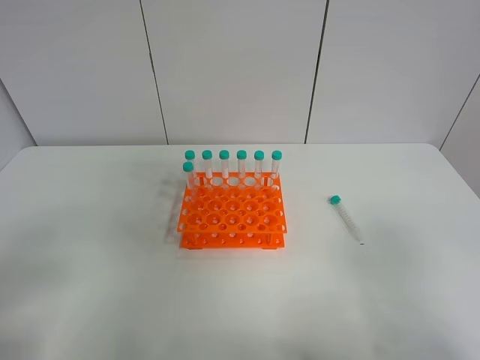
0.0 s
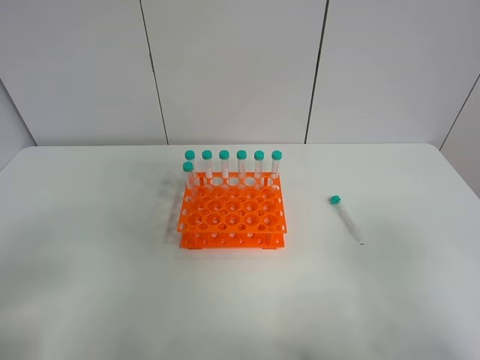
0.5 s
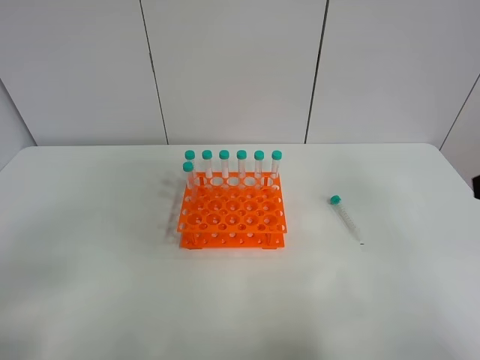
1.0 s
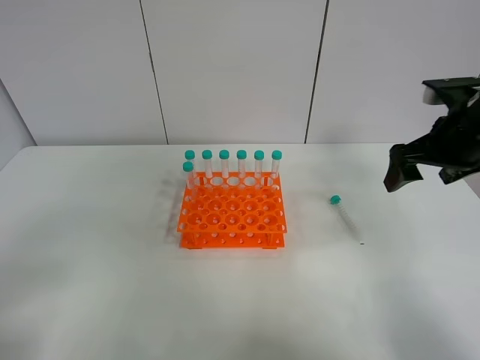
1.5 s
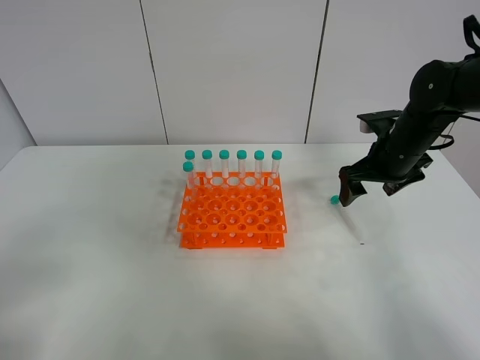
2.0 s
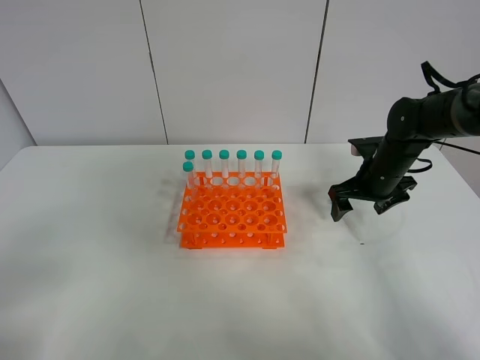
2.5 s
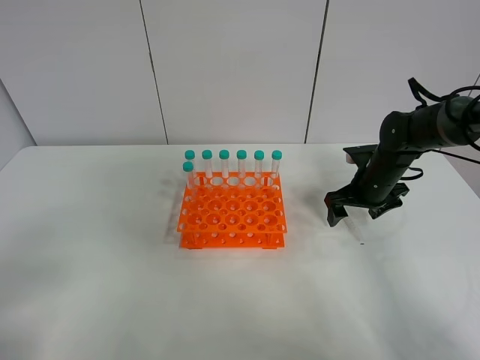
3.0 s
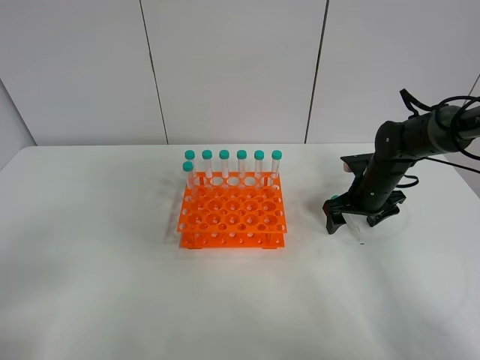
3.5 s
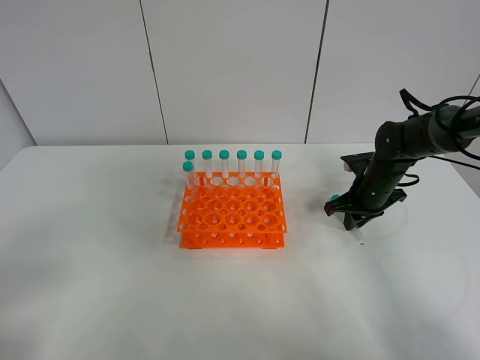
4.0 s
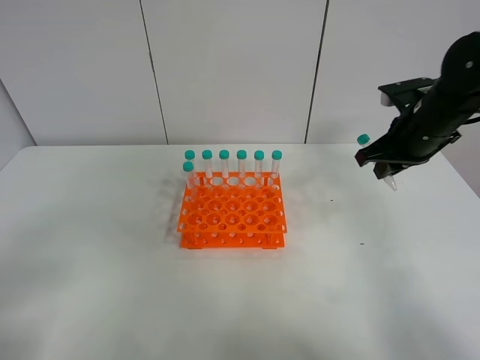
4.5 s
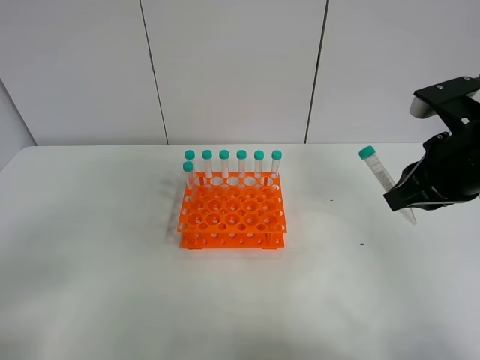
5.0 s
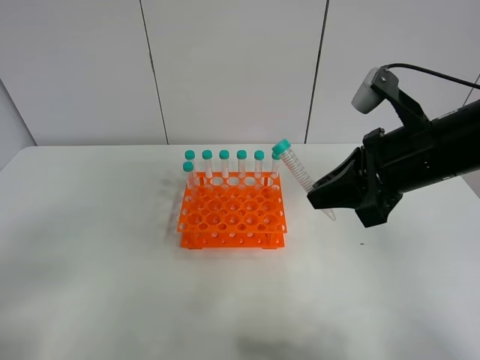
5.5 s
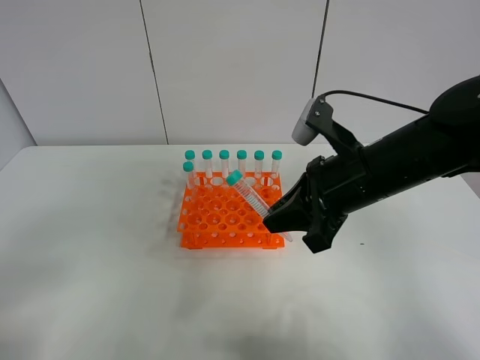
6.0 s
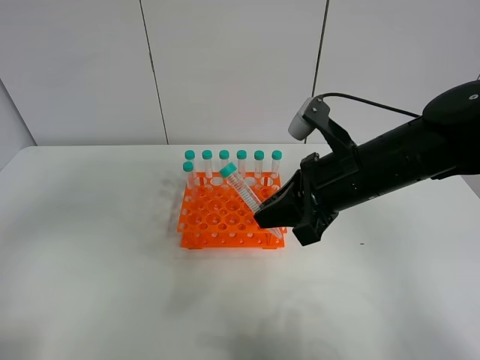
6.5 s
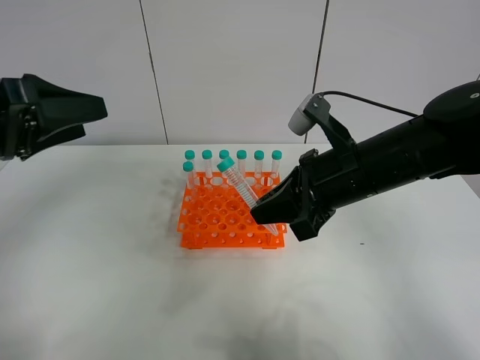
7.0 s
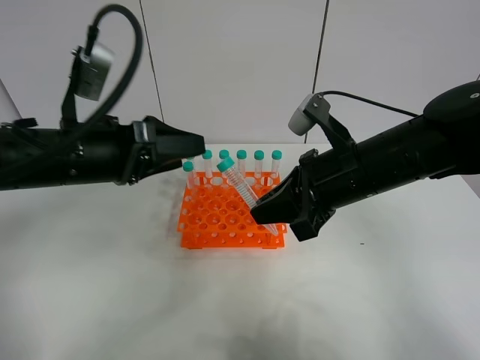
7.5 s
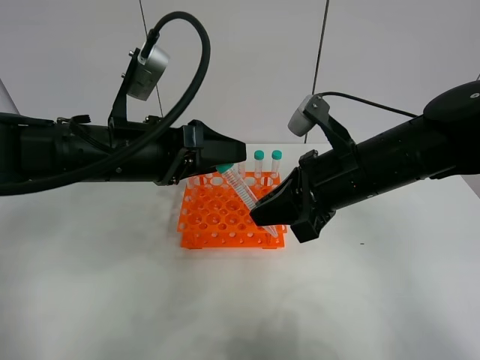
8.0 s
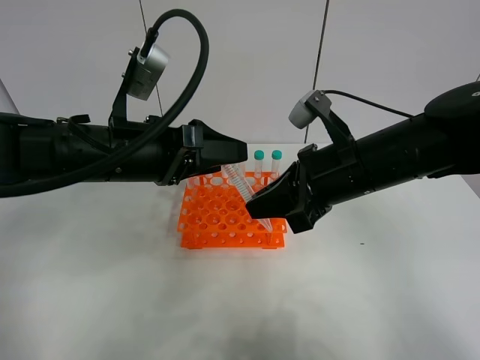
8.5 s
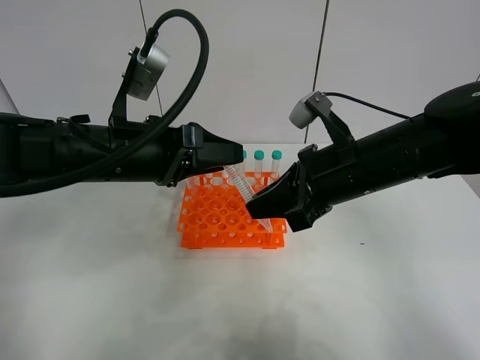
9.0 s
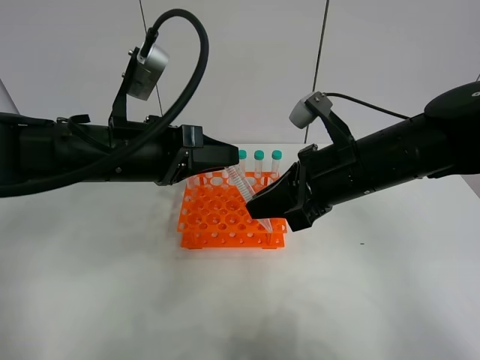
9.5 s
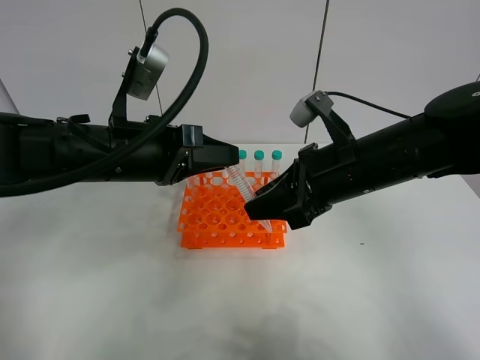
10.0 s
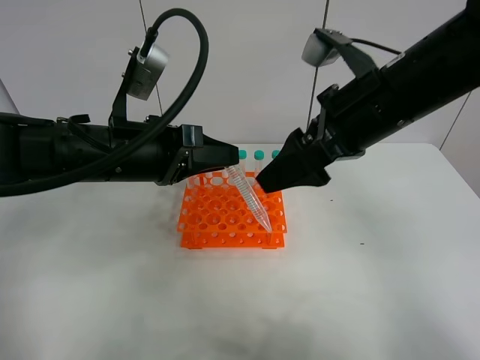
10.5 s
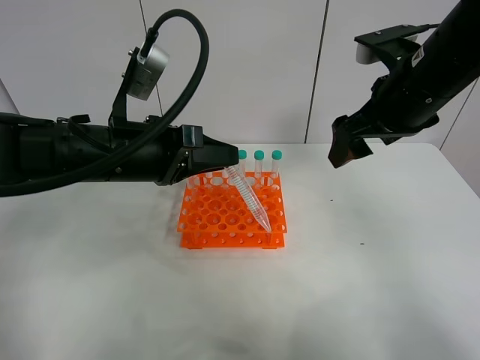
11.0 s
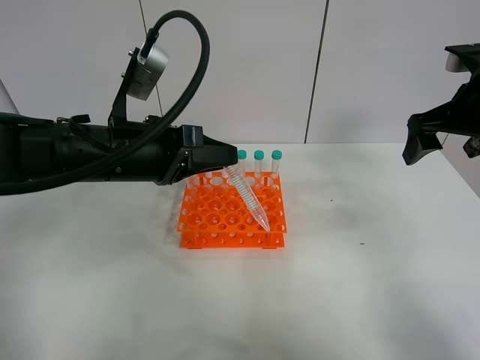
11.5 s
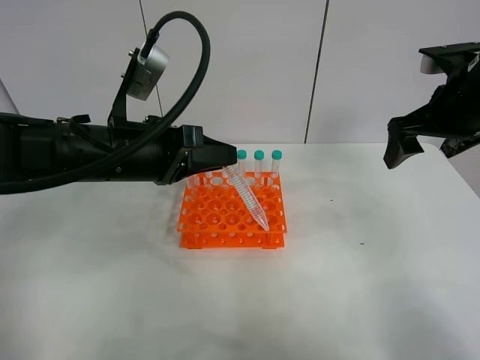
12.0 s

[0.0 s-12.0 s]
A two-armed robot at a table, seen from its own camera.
Task of the whole recording: Put the test tube on the table back onto the test tube rack.
Step, 0.0 to 4.0 s: Pick up the test tube with the right gripper.
Step, 4.5 to 10.0 s: Move the test tube from the right gripper to the left gripper.
0.0 to 2.0 s: The right gripper is displaced forward by about 35 cm.
2.0 to 4.0 s: The right gripper moves downward, approximately 10 cm, and closes.
4.0 to 6.0 s: The right gripper moves backward, upward and to the left, some 25 cm.
6.0 to 8.0 s: The left gripper moves forward and to the right, approximately 30 cm.
8.0 to 10.0 s: The right gripper opens its fingers. Meanwhile the left gripper closes its fingers.
10.0 to 12.0 s: The right gripper shifts roughly 15 cm to the right, forward and upward, and opens up.

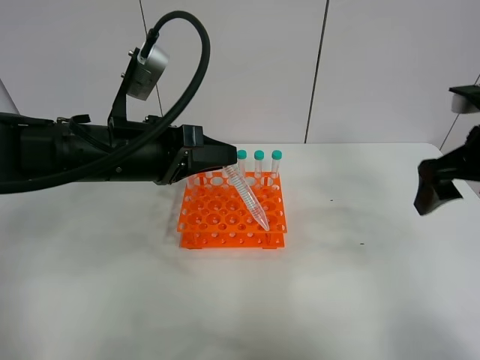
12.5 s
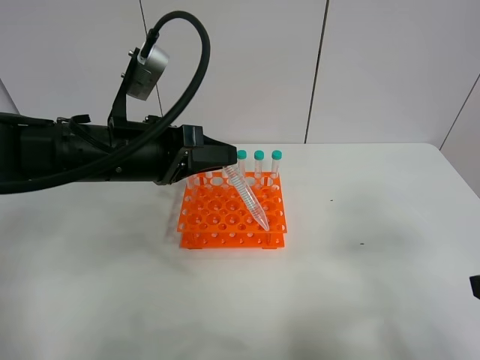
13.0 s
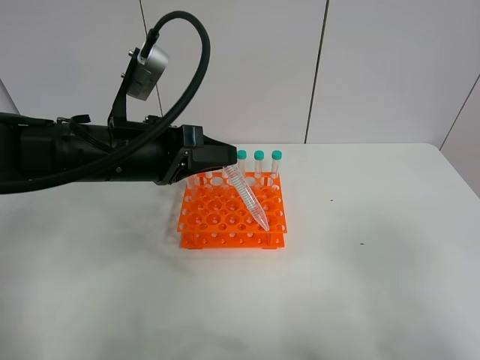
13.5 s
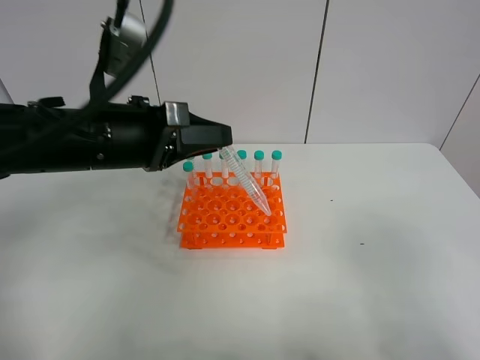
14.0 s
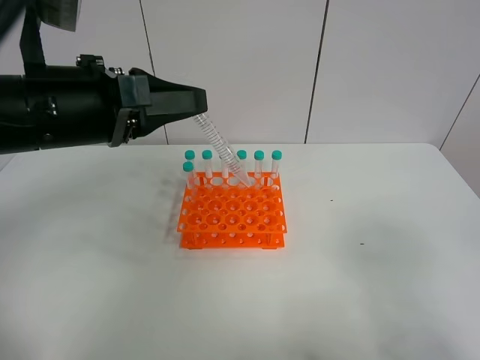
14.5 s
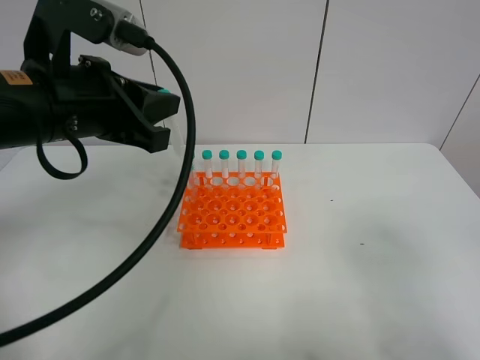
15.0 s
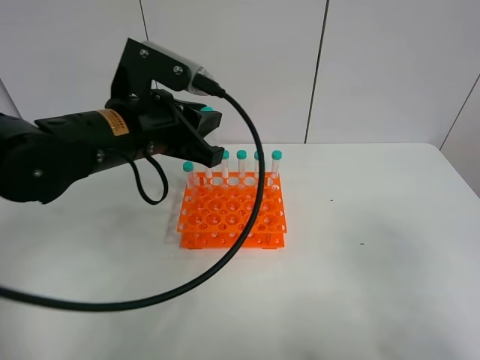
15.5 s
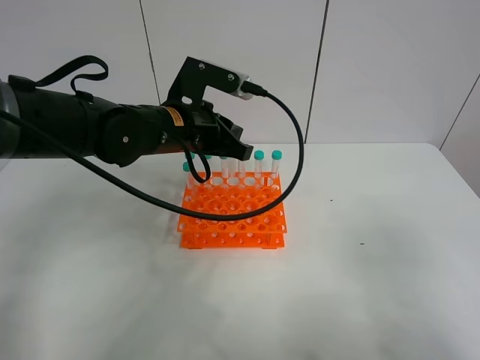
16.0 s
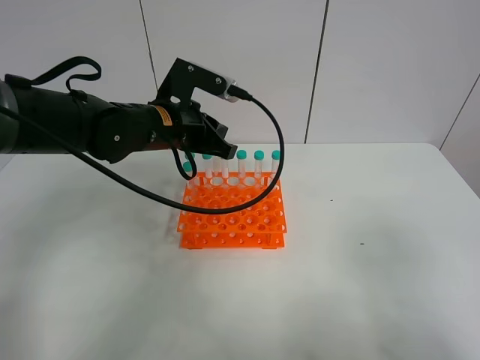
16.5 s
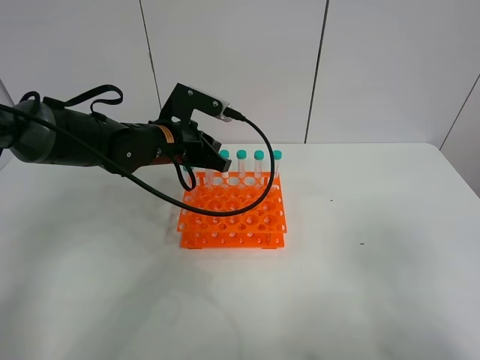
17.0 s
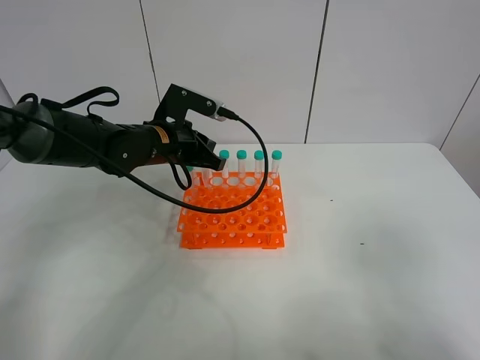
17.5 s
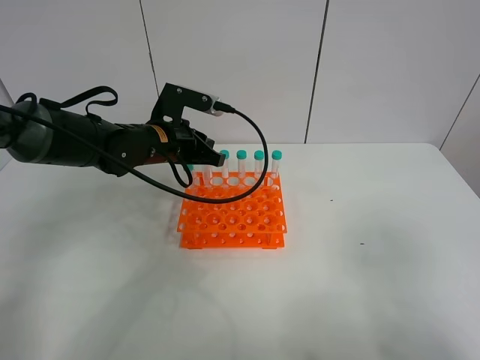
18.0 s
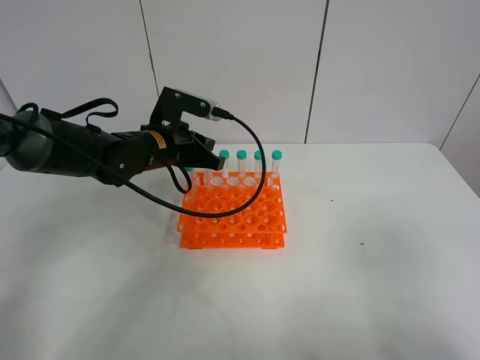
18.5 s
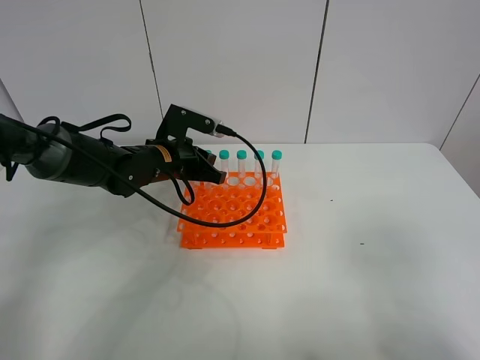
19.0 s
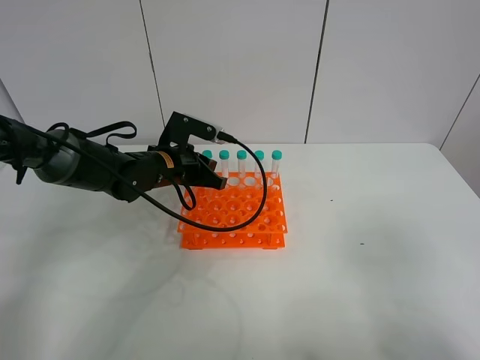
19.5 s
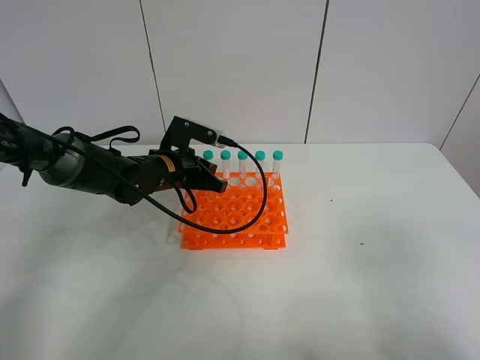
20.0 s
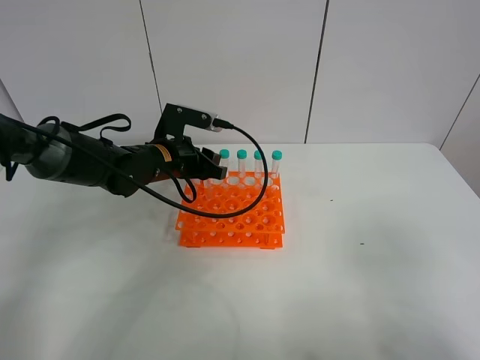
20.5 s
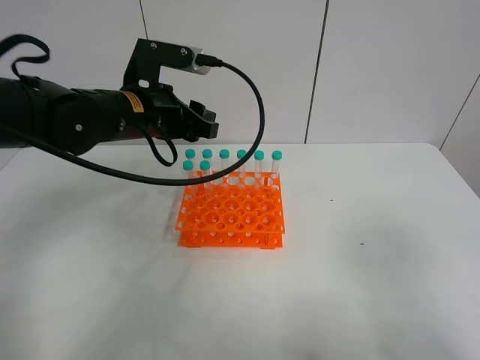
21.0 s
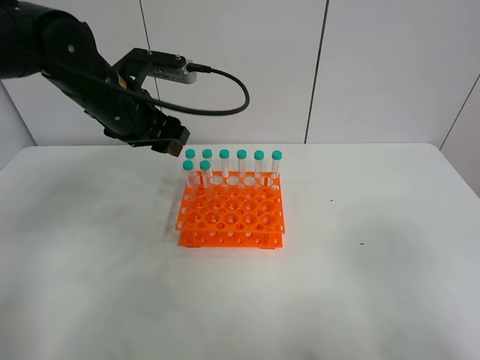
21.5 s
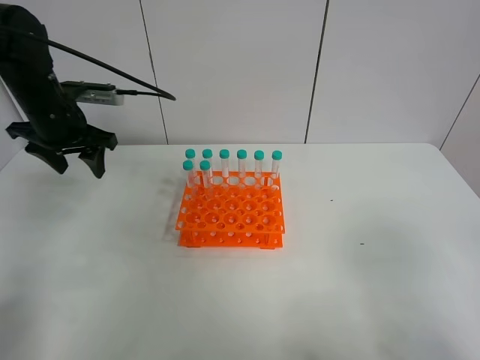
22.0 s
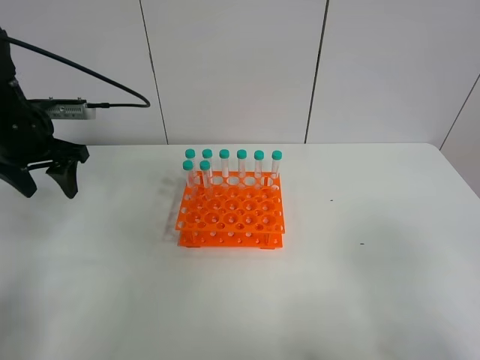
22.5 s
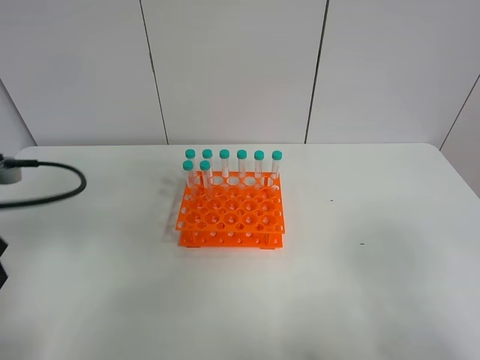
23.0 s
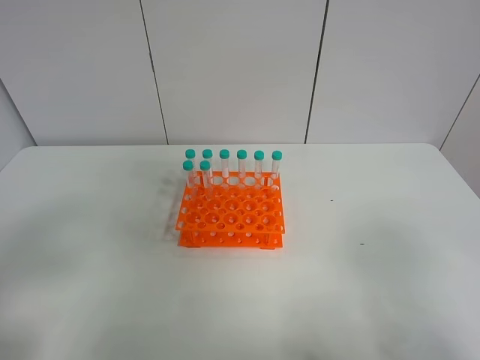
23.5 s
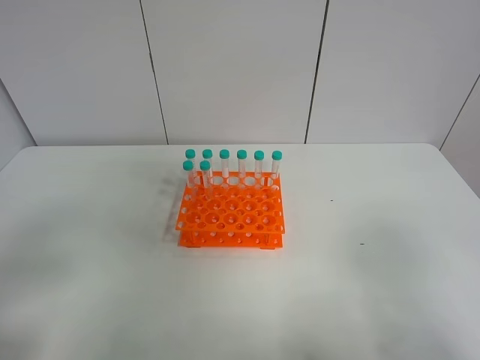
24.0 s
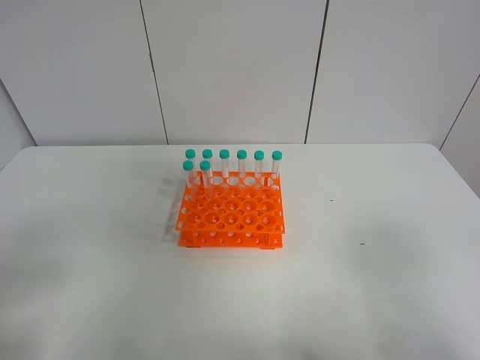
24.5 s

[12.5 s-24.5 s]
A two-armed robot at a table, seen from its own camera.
Task of the whole recording: Put the test tube on the table back onto the test tube rack.
Step, 12.5 to 20.5 s: Place the test tube on the test tube rack with the left gripper.
12.5 to 14.5 s: The right gripper travels backward by roughly 25 cm, while the left gripper moves upward, about 5 cm.
14.5 to 16.5 s: The left gripper travels forward, downward and to the right by roughly 15 cm.
16.5 to 18.5 s: The left gripper changes place by approximately 5 cm.
18.5 to 20.5 s: The left gripper opens.
20.5 to 22.5 s: The left gripper is displaced to the left and upward by some 20 cm, and opens up.
22.5 to 24.5 s: The left gripper is displaced backward by roughly 35 cm.

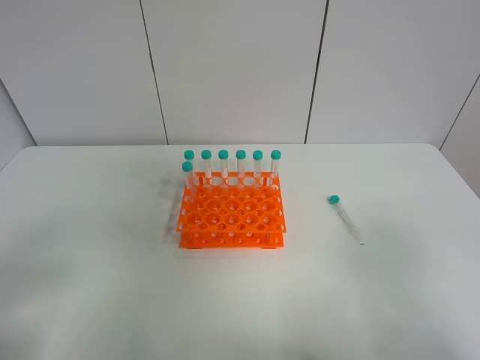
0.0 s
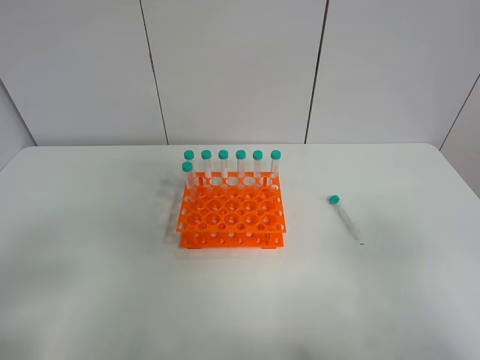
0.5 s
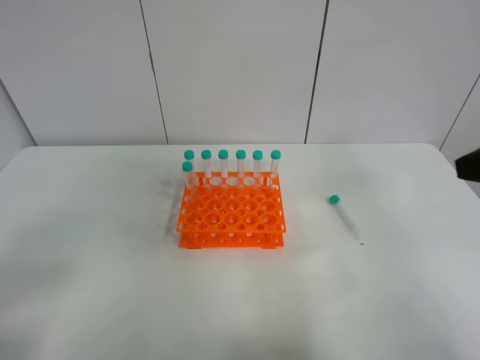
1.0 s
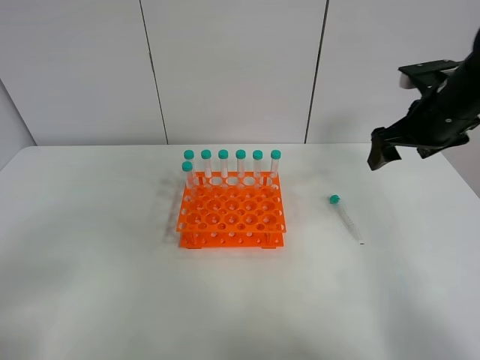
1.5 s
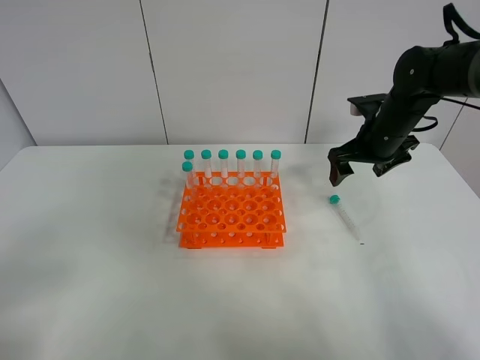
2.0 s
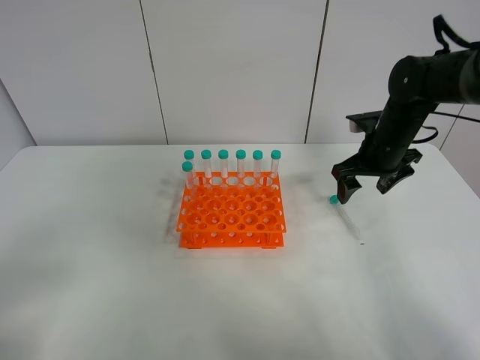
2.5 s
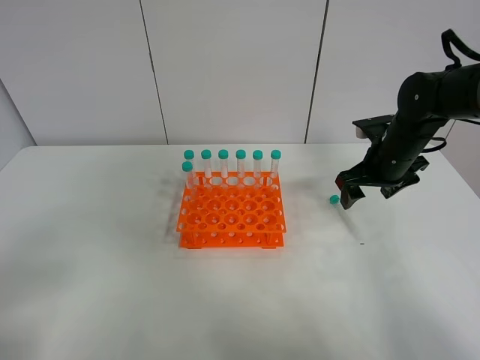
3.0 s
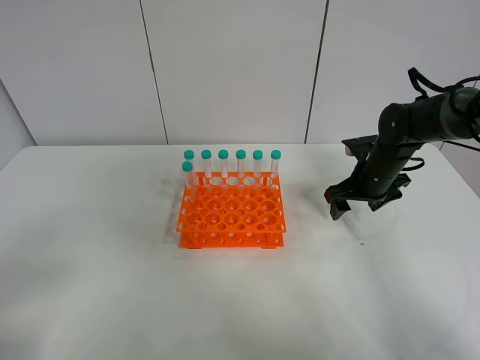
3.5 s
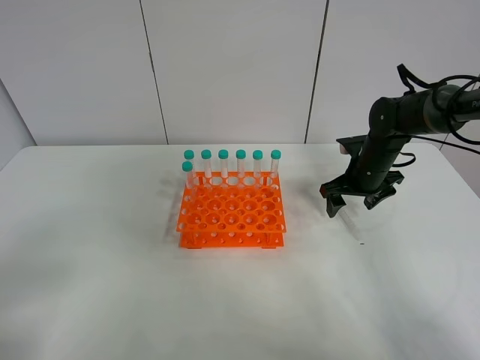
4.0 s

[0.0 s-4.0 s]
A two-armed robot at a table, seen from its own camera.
Task of the whole recording: Put the test tube on the table back onto the test tube rack.
0.0 to 2.0 s: The right gripper travels forward by about 40 cm.
2.0 to 4.0 s: The right gripper is displaced downward by approximately 5 cm.
